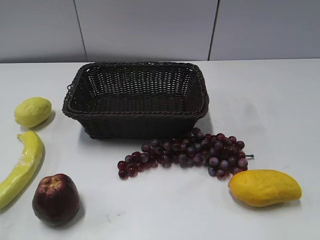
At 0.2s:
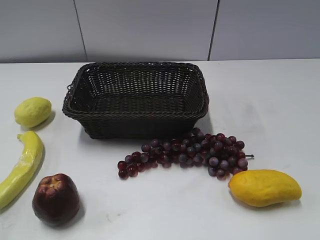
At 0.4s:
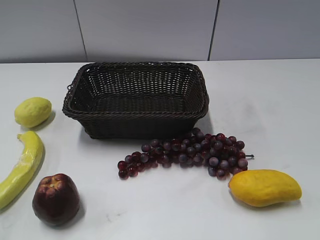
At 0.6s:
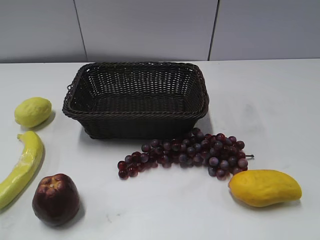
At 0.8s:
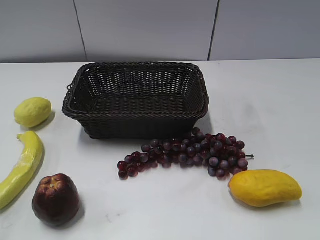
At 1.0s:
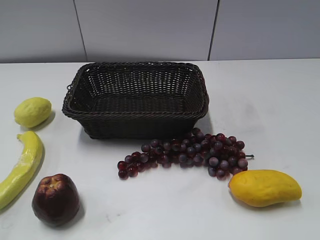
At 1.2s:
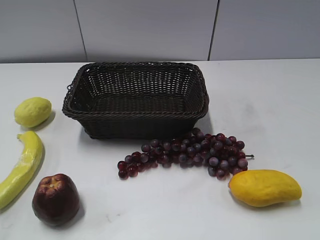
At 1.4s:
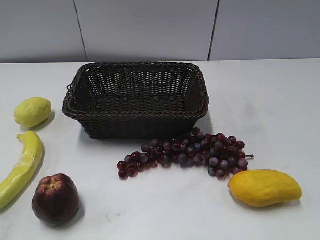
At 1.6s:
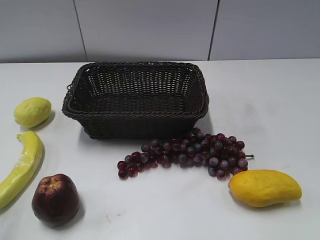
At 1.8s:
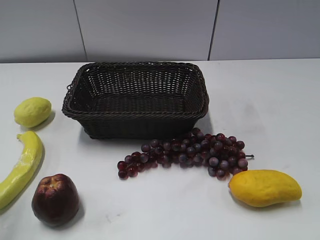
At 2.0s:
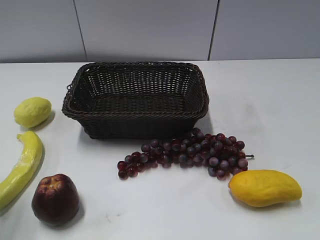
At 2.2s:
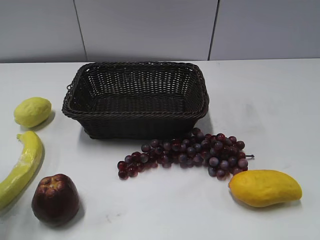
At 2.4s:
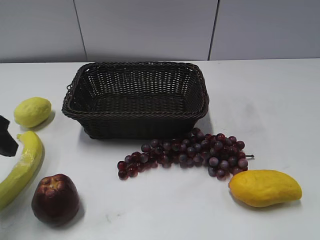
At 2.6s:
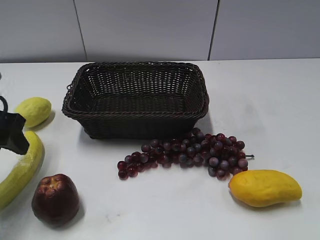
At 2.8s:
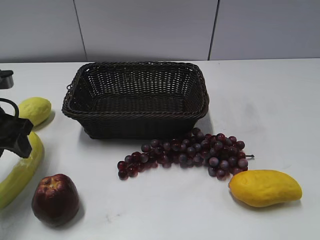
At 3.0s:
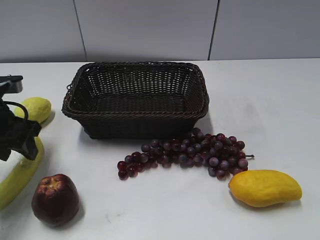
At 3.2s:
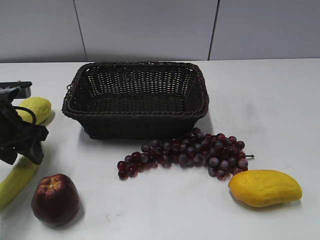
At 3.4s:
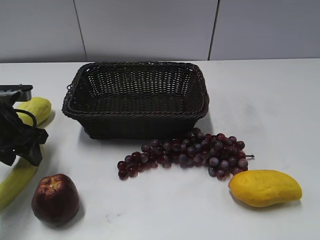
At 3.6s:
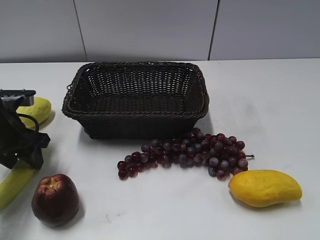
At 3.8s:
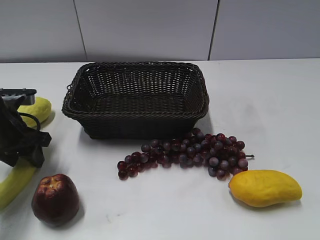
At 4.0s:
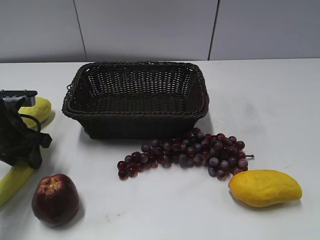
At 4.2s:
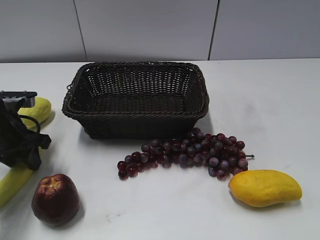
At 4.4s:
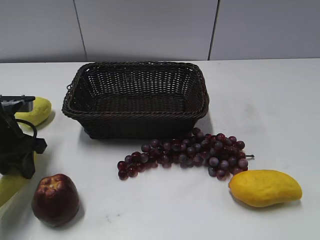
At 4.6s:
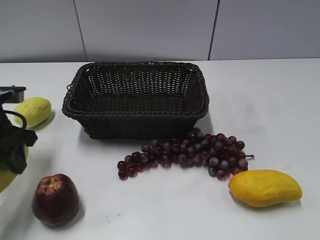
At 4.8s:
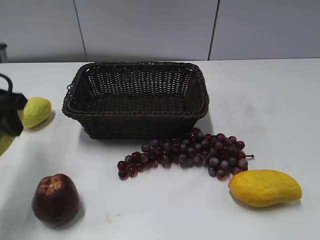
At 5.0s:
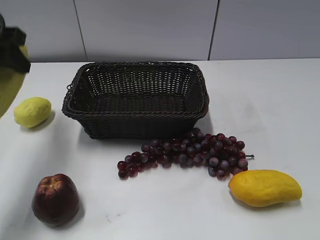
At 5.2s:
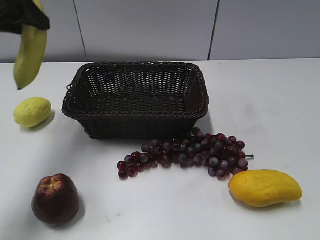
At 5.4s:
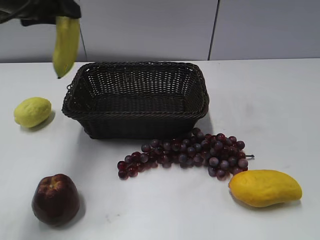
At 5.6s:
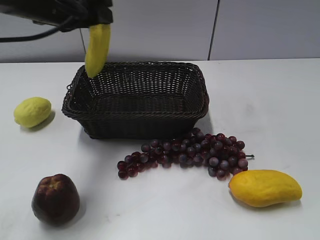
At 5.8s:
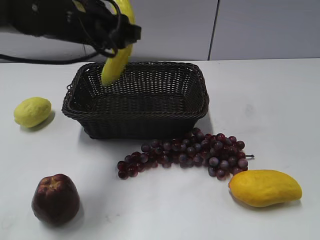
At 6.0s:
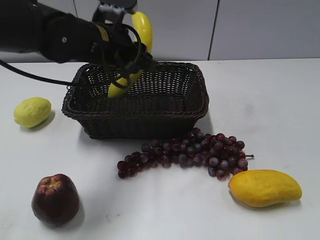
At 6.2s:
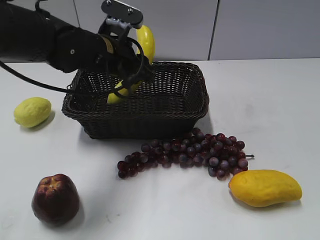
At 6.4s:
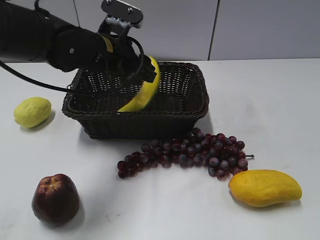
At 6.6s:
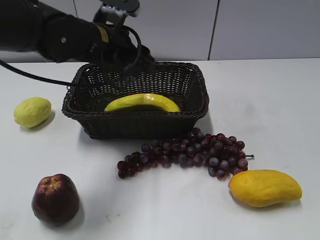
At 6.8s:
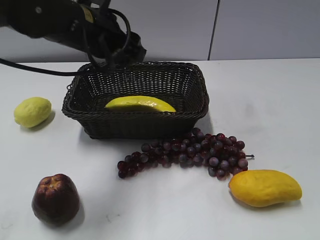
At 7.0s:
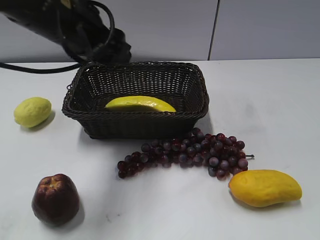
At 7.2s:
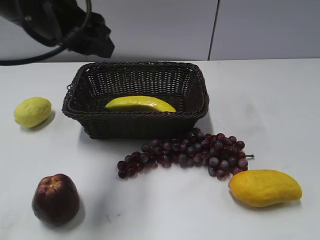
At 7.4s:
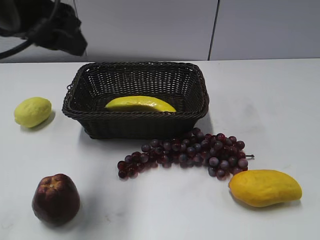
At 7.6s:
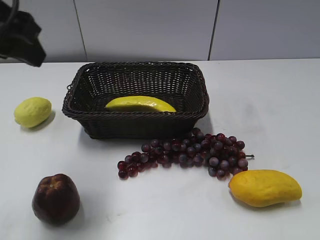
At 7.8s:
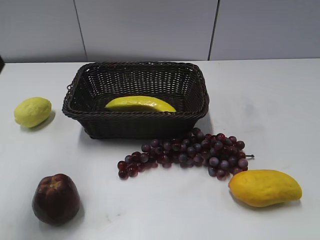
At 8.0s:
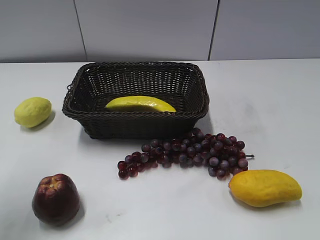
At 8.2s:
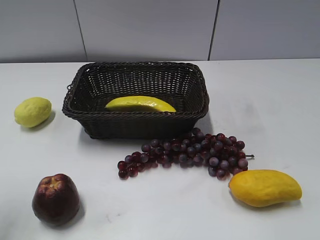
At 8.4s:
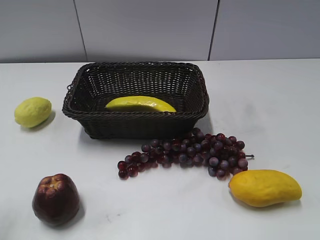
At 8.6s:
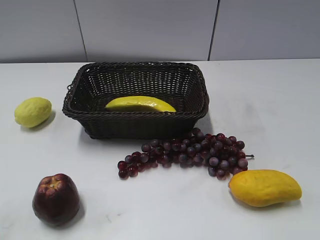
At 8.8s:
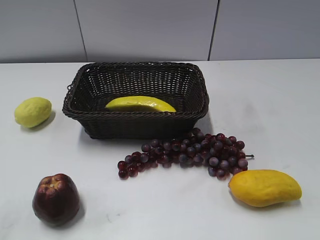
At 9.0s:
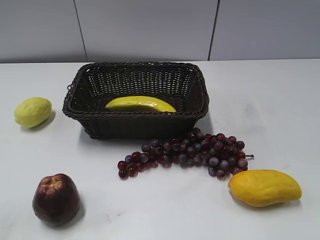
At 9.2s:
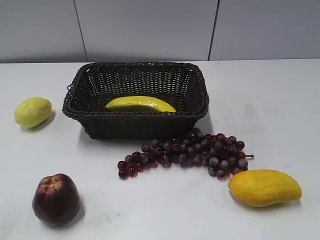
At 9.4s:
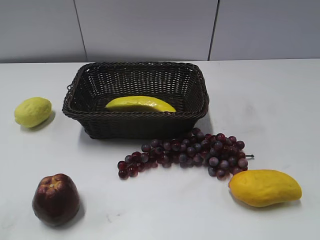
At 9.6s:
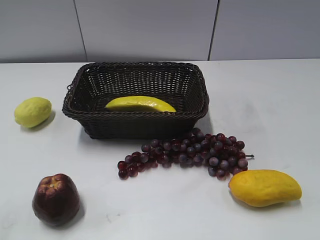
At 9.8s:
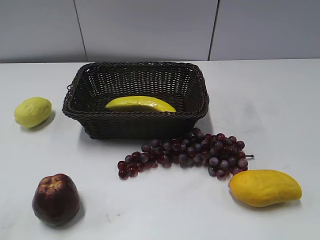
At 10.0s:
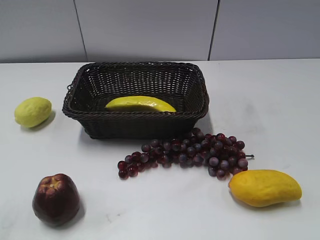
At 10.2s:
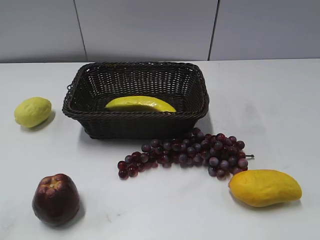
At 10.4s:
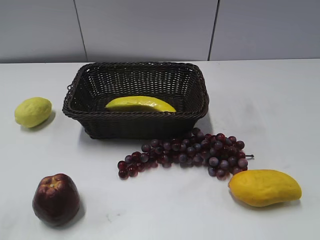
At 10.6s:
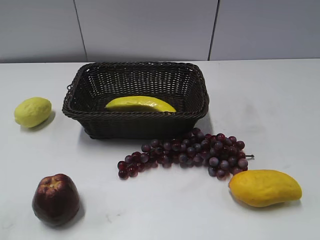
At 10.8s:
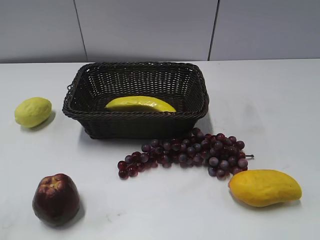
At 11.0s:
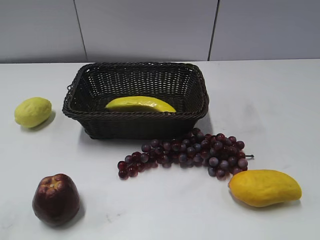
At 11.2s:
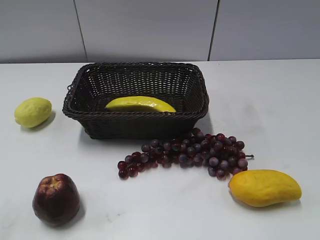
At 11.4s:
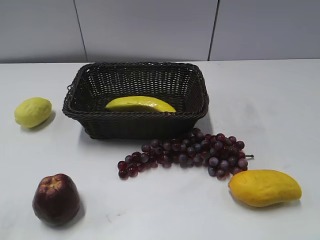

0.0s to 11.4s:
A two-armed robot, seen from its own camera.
Step, 2.4s to 3.8s: Grasp the banana with left gripper.
Step, 4.2s to 6.6s: Place the banana in the basket with left gripper.
1.4s to 2.8s: The left gripper moves forward and downward, approximately 25 cm.
2.8s to 4.2s: The left gripper shifts approximately 5 cm downward, and closes.
4.2s to 5.6s: The left gripper goes roughly 20 cm upward and to the right.
5.6s to 7.2s: The left gripper goes some 10 cm backward, moves some 10 cm downward and comes back, and opens.
7.2s to 8.6s: The left gripper is displaced backward and to the left by approximately 25 cm.

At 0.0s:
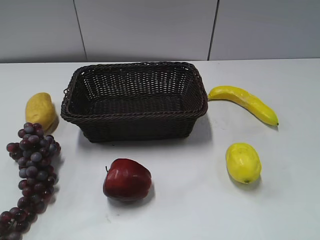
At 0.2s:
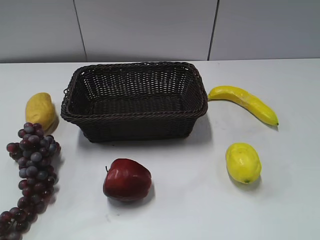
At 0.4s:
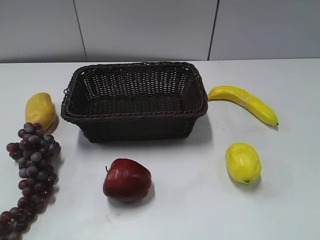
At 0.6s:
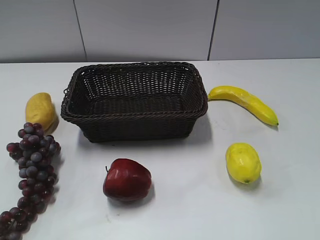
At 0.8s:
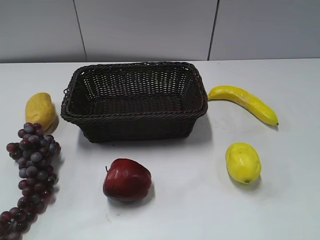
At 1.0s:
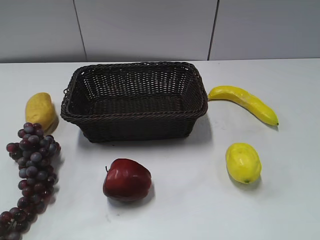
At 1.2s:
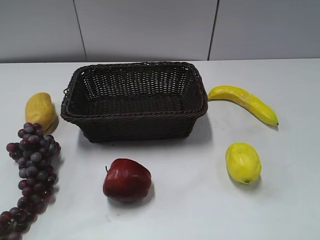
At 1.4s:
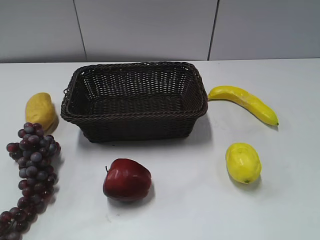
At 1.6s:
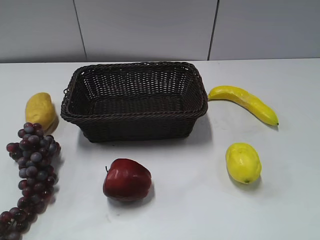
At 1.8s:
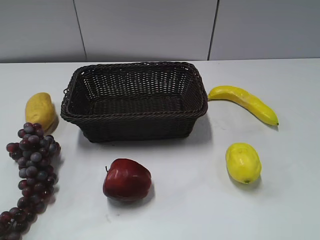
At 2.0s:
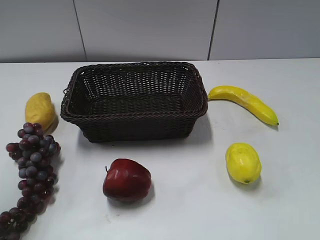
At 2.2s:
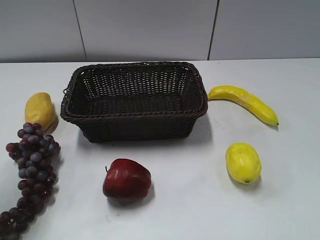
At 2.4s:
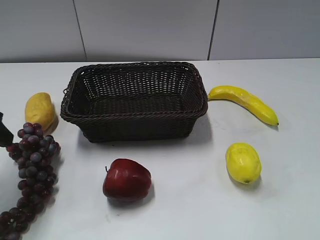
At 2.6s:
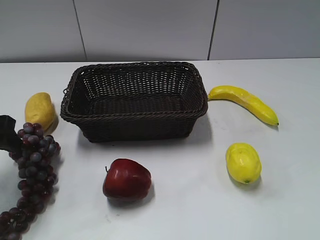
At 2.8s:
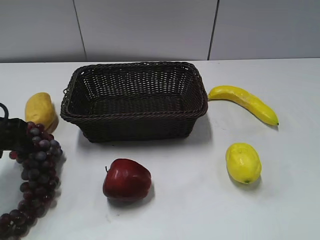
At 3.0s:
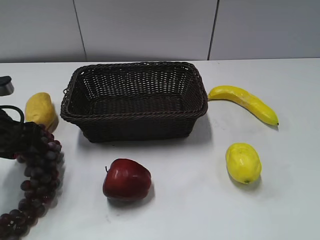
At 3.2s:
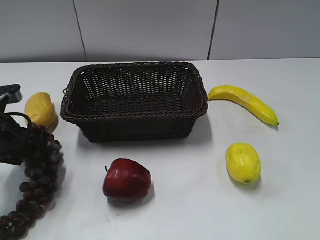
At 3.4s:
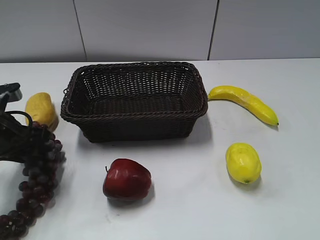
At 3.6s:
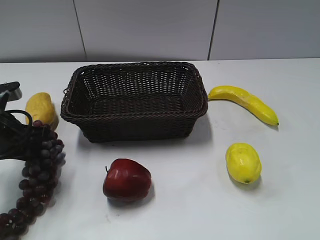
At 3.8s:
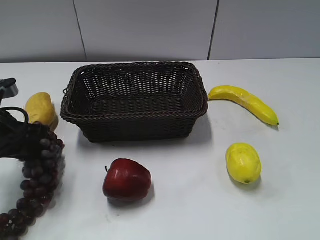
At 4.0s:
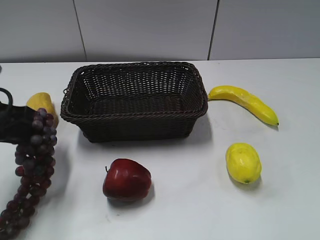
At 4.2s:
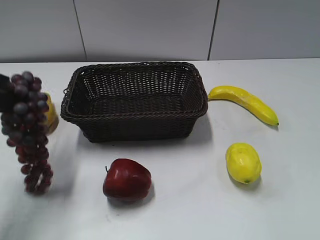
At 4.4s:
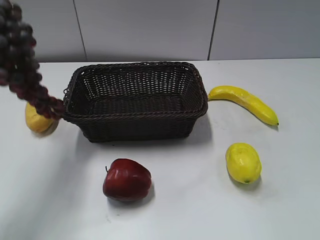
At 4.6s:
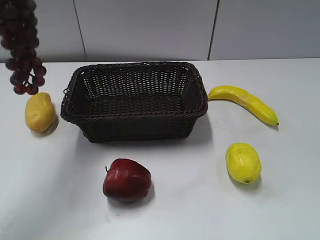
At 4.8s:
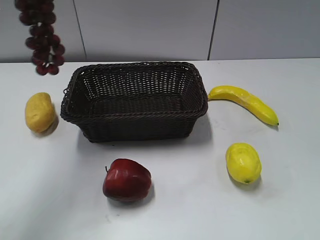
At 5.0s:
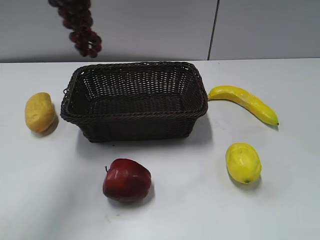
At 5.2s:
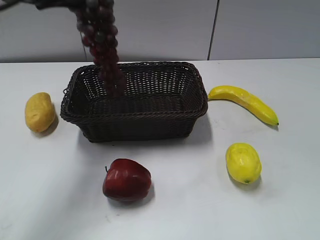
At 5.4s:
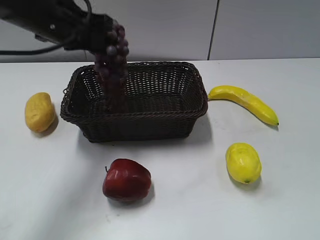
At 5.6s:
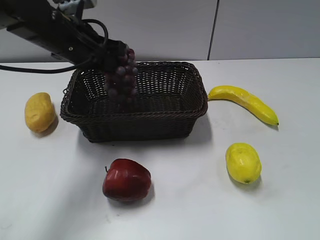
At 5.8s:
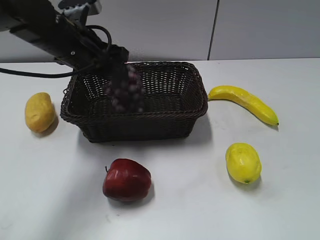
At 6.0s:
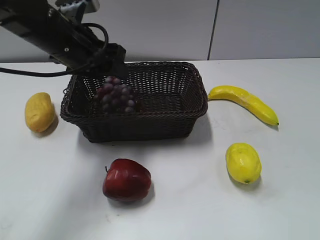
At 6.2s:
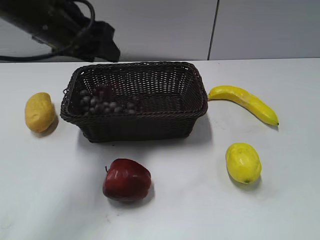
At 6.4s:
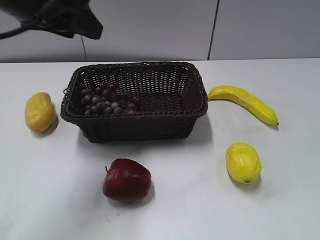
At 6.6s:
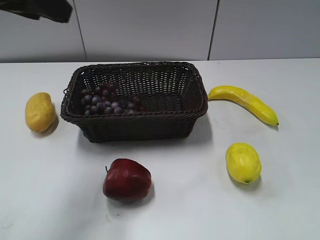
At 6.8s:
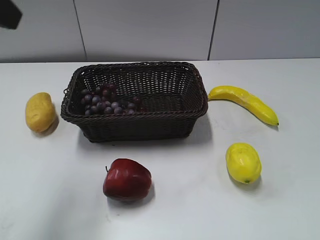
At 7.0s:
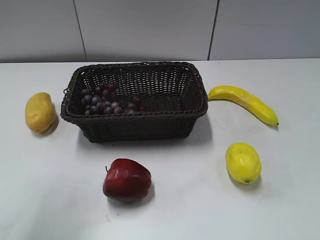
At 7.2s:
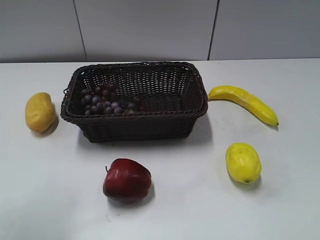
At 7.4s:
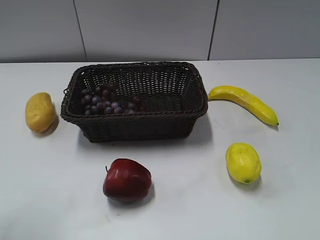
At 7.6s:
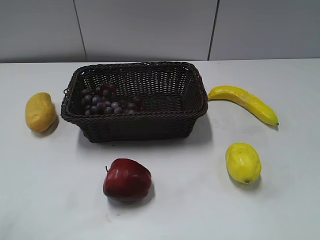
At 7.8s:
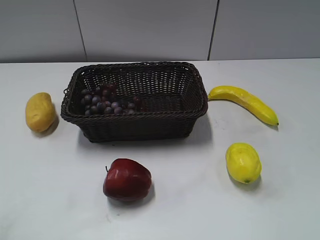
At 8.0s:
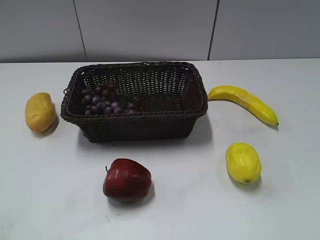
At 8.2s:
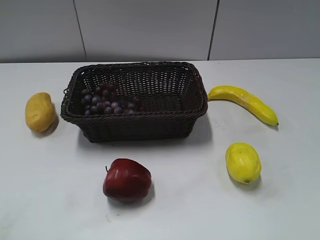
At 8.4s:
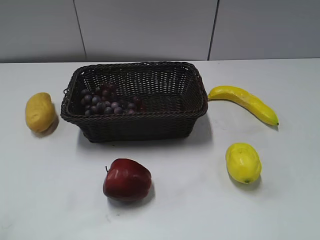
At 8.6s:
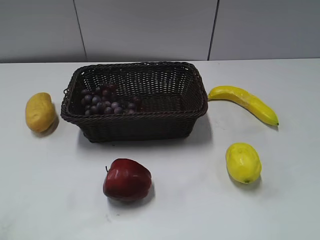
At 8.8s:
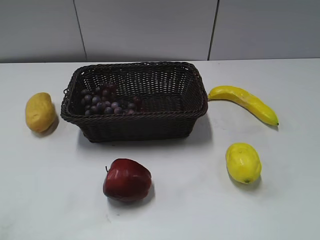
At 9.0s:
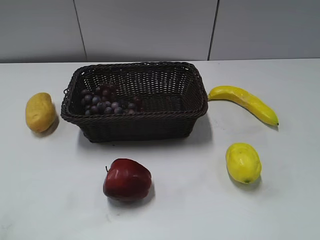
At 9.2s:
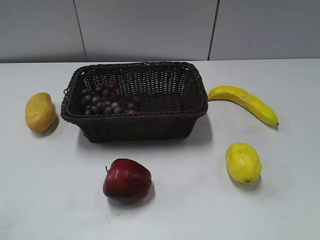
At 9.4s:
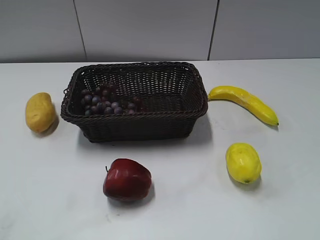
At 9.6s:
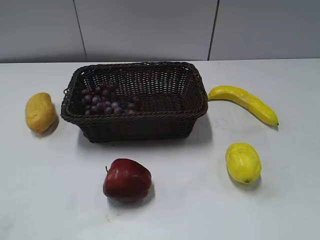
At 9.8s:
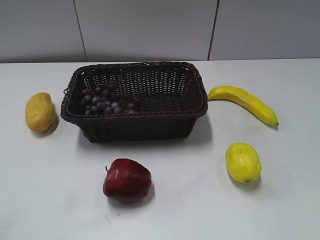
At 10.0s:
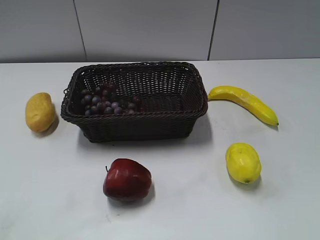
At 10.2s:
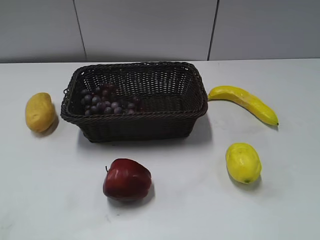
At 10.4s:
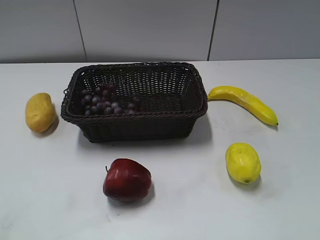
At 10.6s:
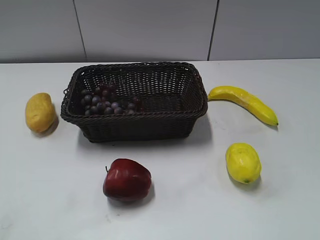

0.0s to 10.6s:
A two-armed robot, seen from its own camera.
Step, 2.2s to 3.8s: Grasp the grape with left gripper.
Step, 4.2s to 6.2s: Place the grape in the basket with left gripper.
1.6s to 3.0s: The left gripper travels forward and downward by about 25 cm.
3.0s to 4.6s: The left gripper travels upward by roughly 25 cm, and closes its fingers.
4.6s to 6.0s: The left gripper shifts roughly 20 cm downward, to the right and forward, and opens.
6.0s to 7.6s: The left gripper heads backward and to the left, covering some 30 cm.
